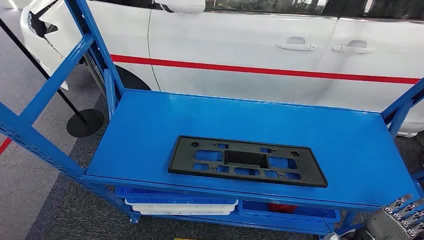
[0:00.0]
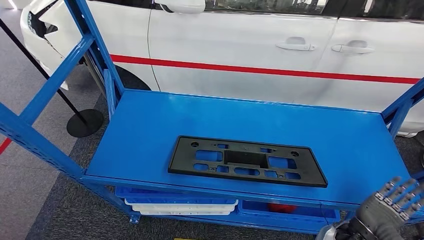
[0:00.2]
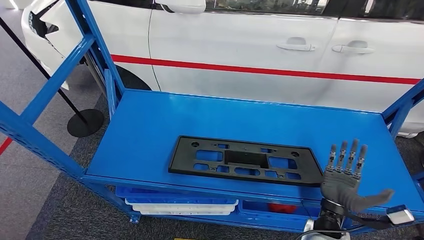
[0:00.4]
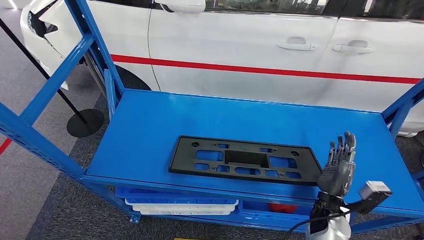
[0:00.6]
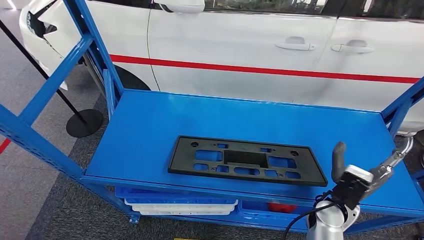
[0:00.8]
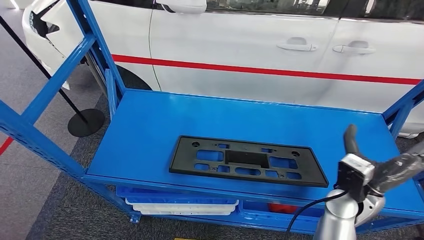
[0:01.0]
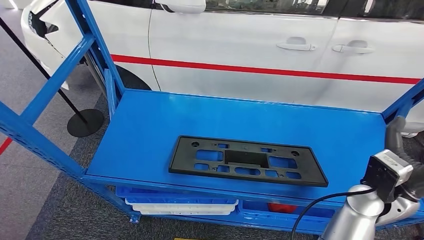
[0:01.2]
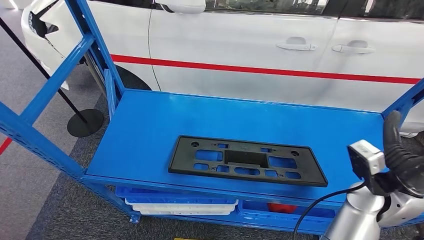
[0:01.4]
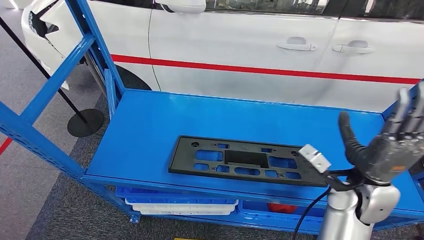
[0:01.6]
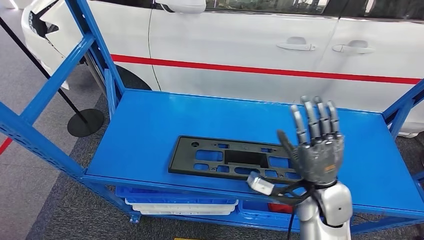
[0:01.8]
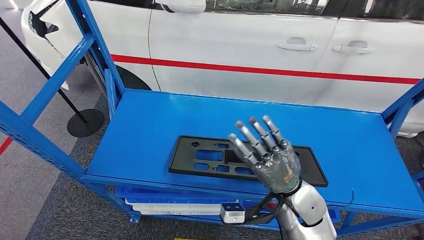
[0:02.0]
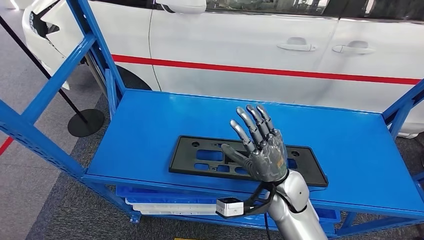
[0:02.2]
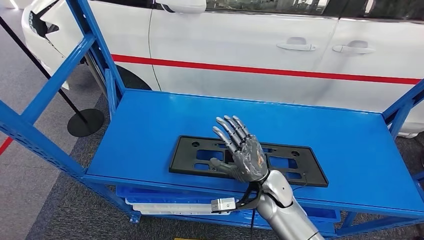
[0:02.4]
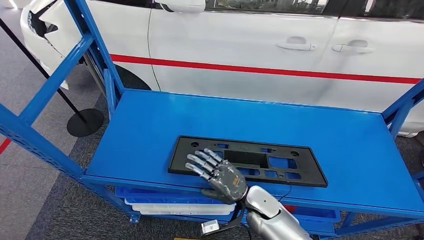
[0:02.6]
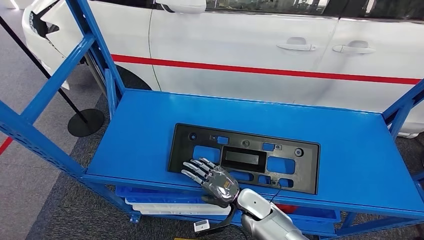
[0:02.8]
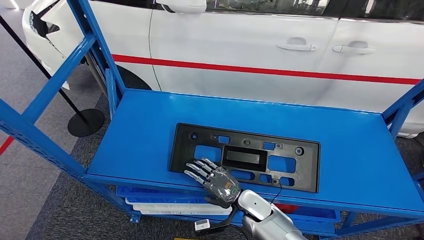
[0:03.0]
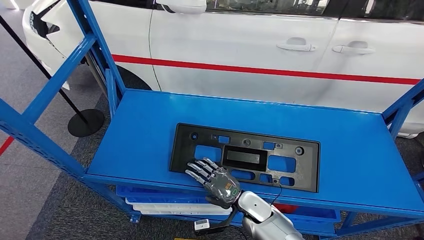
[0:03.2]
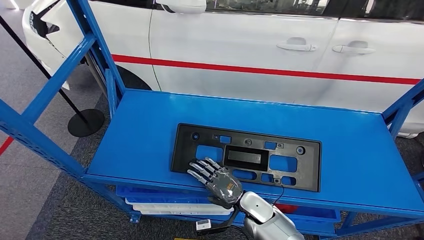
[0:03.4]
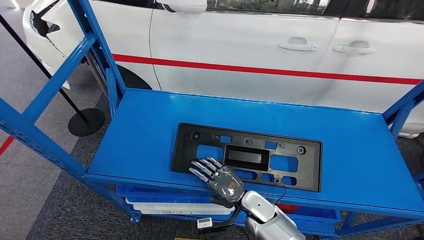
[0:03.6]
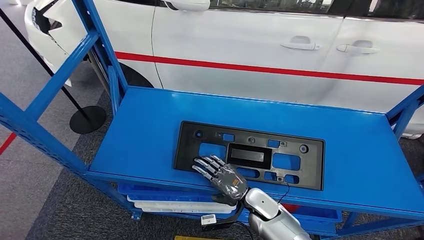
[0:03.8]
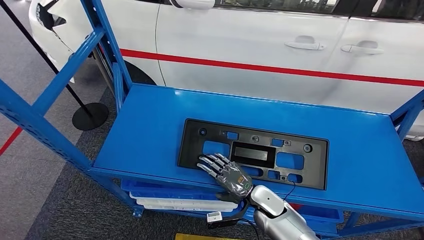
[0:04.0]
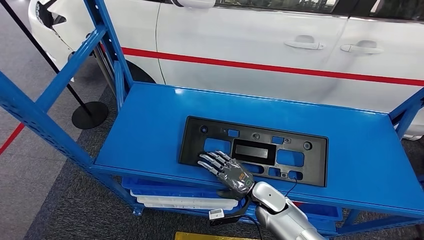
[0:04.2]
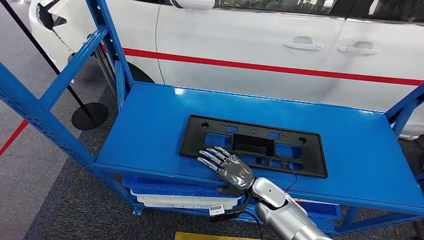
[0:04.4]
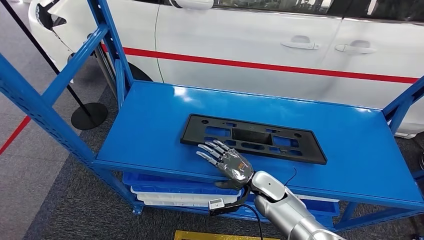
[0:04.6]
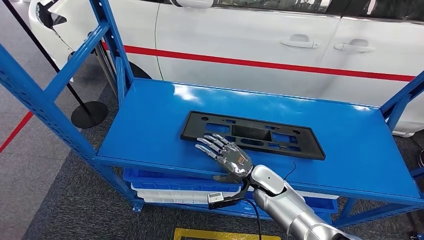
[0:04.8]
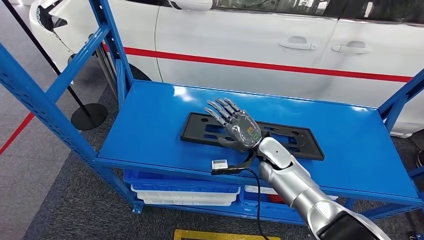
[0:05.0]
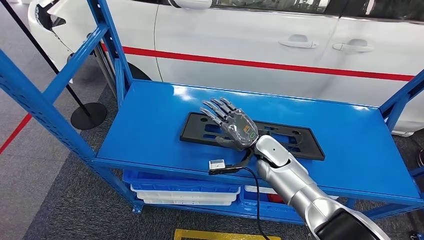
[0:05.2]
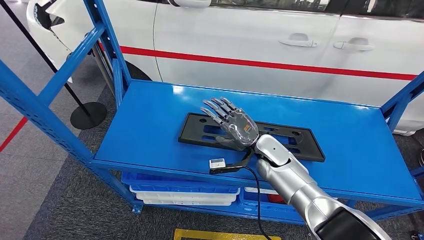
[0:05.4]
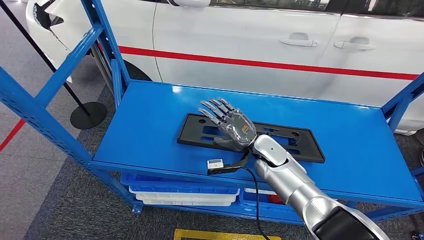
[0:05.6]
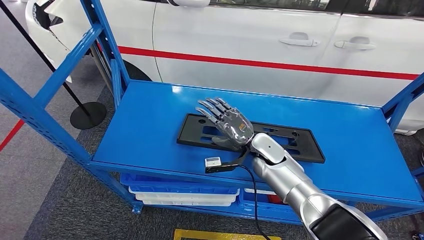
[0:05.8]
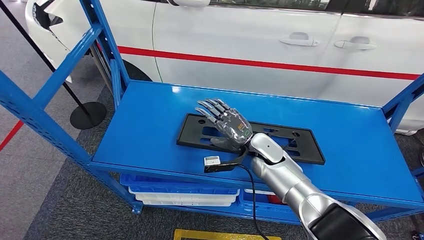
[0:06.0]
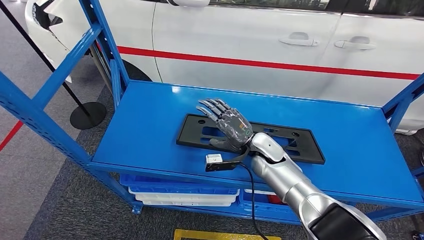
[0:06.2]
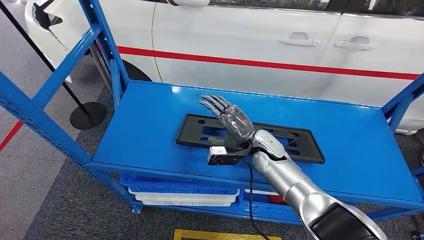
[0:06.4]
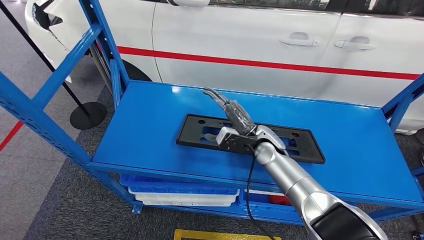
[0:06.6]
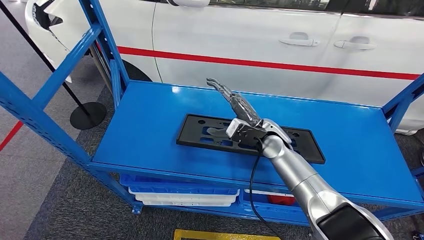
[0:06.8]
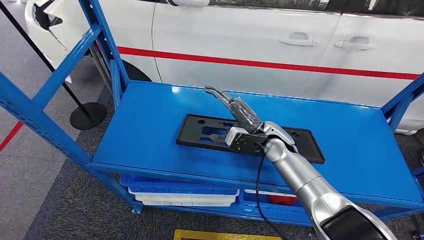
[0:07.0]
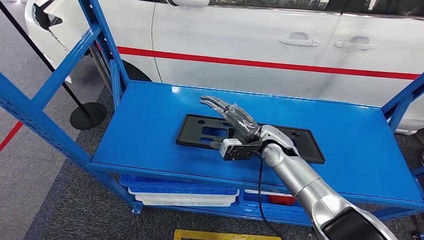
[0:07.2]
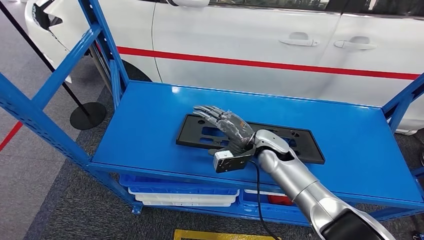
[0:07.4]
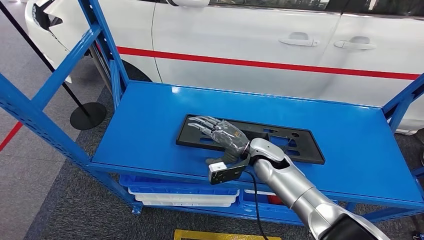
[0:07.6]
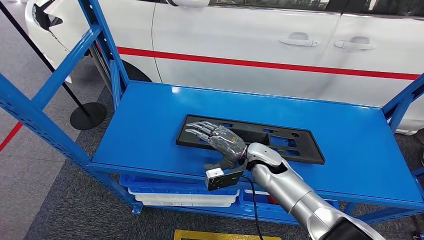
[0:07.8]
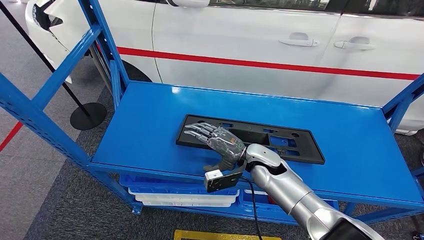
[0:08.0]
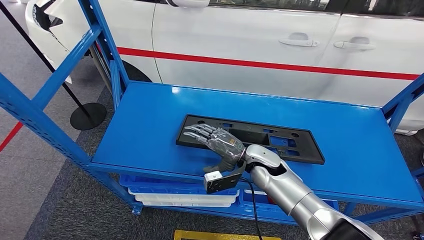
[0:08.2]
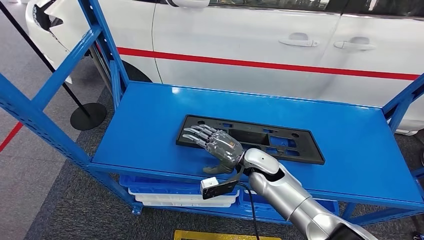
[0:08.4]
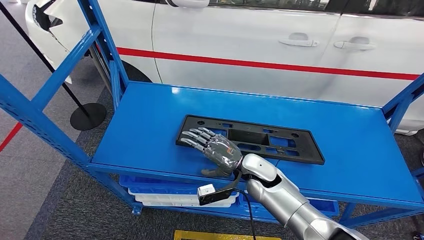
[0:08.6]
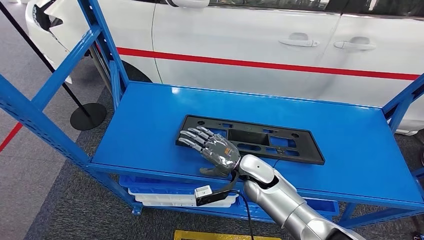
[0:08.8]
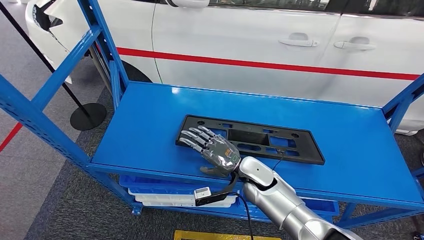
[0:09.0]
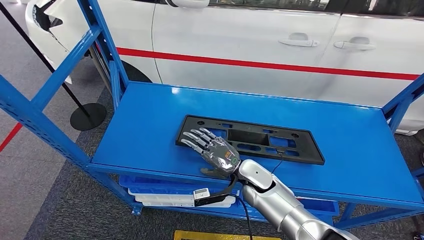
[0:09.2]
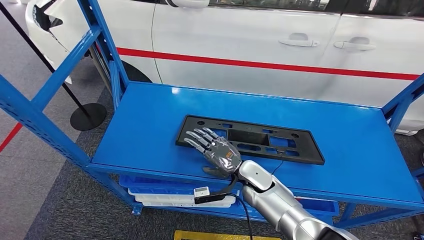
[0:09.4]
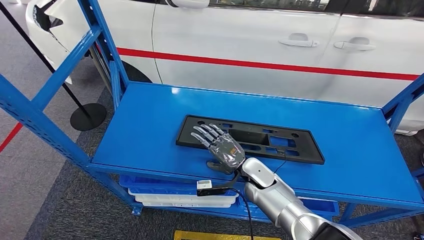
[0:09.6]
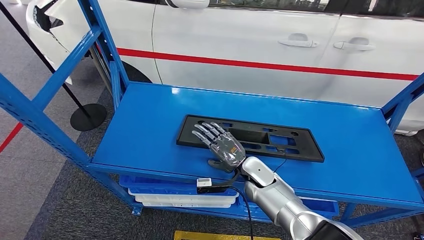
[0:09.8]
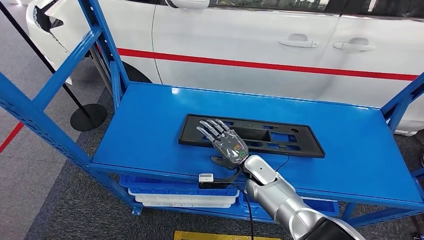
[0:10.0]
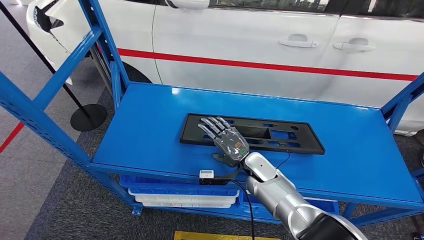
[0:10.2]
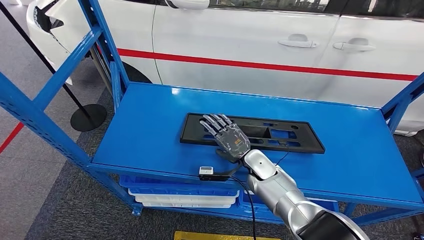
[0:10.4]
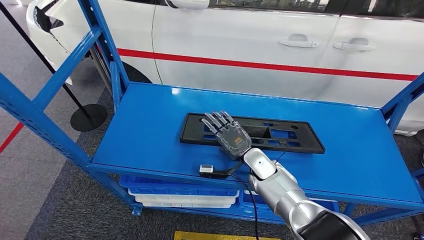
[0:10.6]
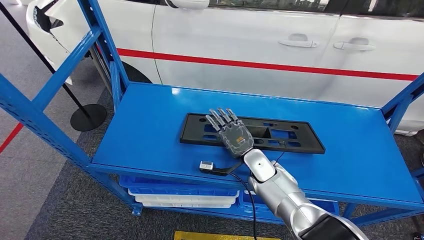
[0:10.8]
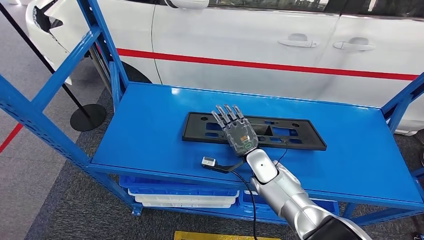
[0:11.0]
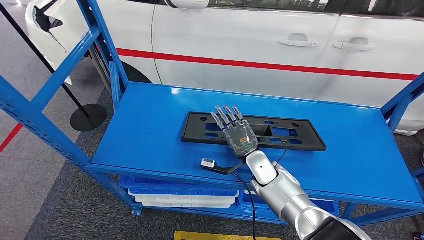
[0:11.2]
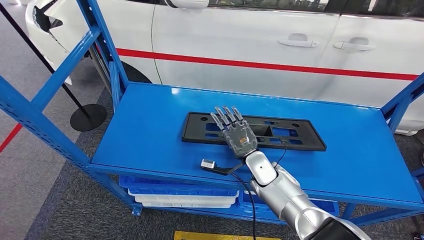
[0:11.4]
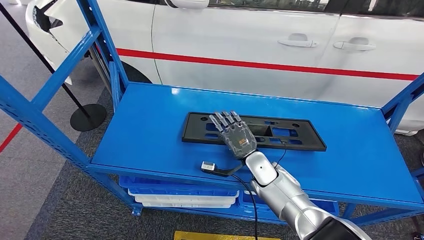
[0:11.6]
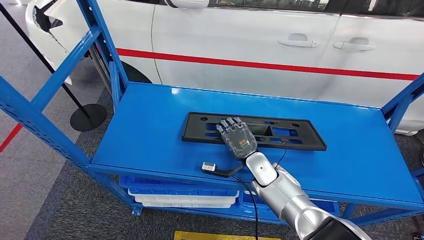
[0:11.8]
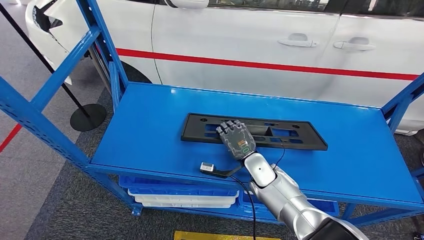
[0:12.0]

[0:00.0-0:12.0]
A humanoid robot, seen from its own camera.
0:01.6 to 0:03.0: The right hand is displaced downward and to the left by roughly 30 cm.
0:07.6 to 0:09.0: The right hand moves some 5 cm.
0:10.4 to 0:12.0: There are only small adjustments of the hands.

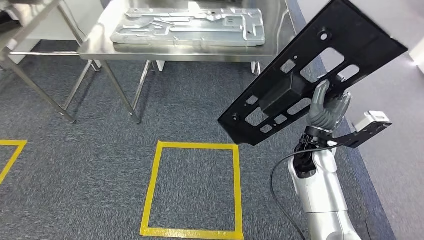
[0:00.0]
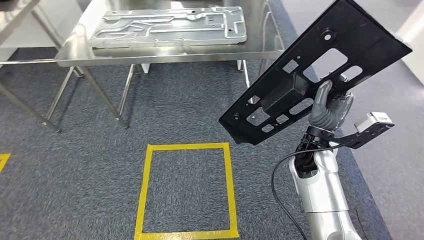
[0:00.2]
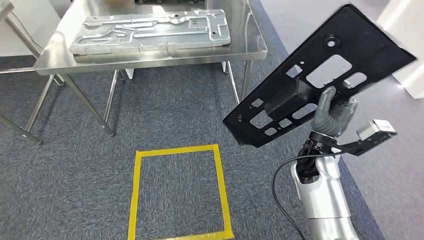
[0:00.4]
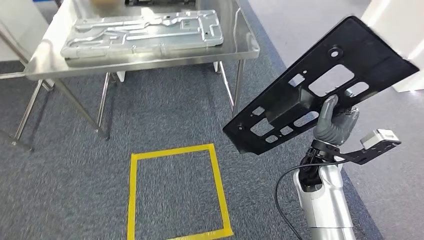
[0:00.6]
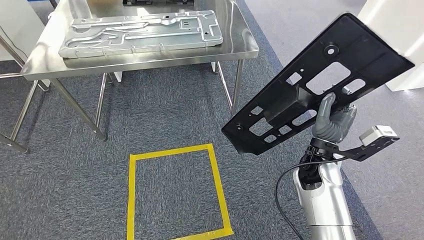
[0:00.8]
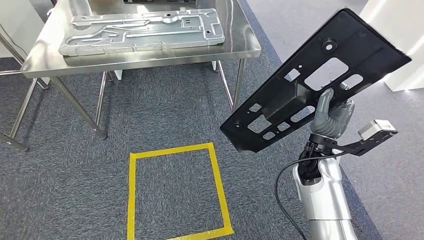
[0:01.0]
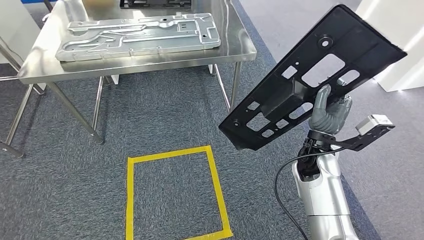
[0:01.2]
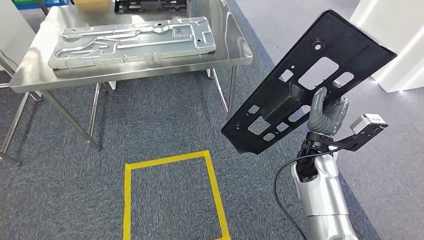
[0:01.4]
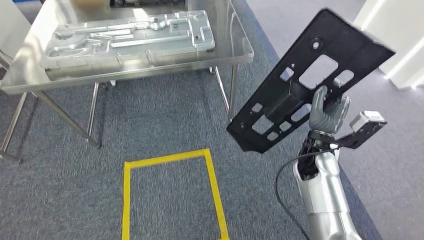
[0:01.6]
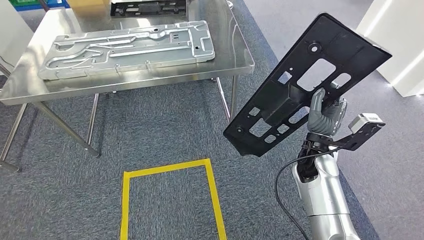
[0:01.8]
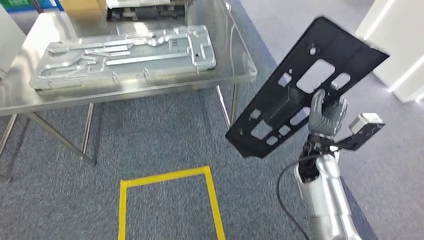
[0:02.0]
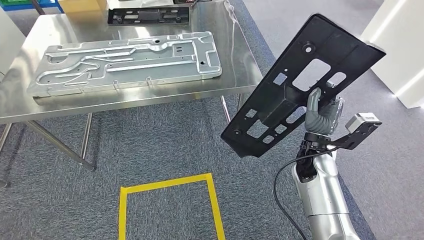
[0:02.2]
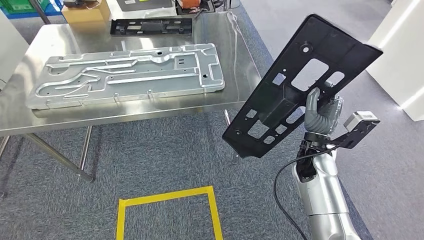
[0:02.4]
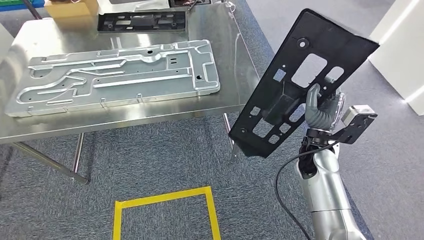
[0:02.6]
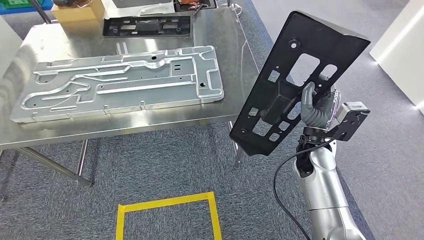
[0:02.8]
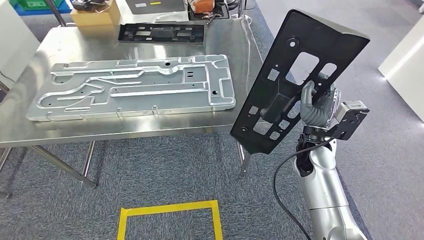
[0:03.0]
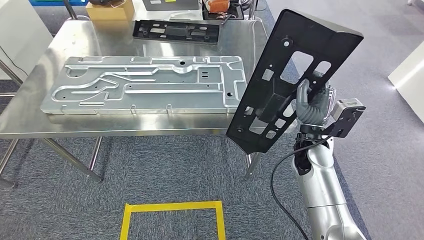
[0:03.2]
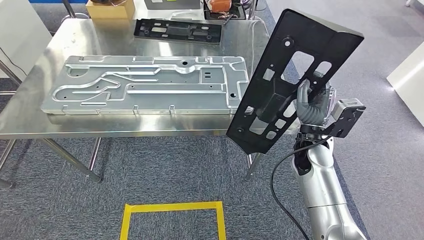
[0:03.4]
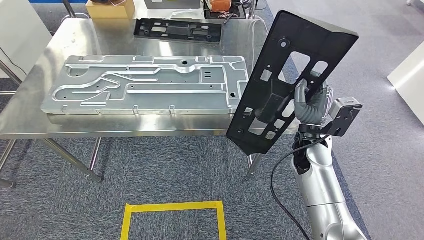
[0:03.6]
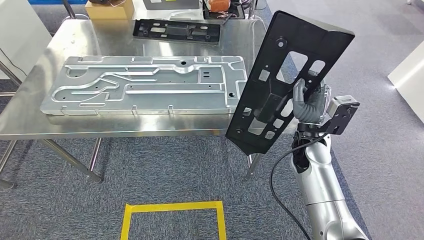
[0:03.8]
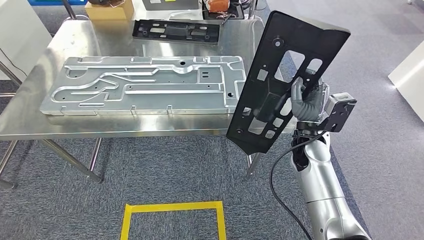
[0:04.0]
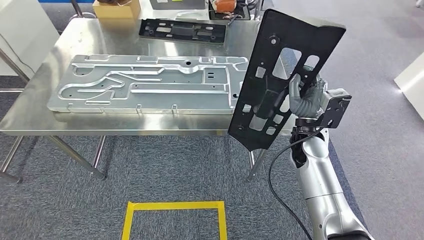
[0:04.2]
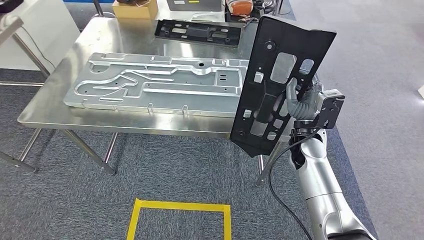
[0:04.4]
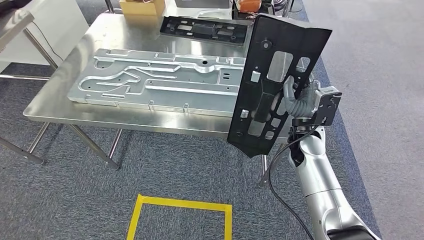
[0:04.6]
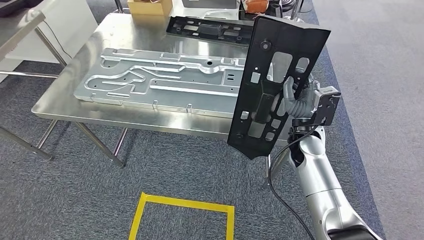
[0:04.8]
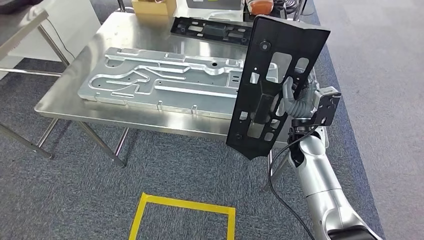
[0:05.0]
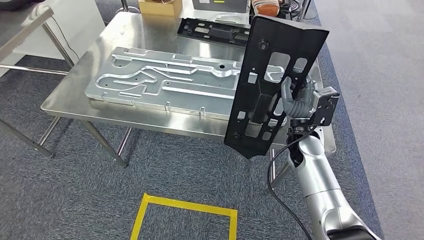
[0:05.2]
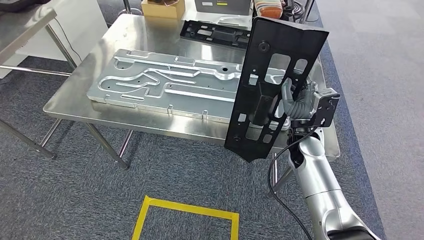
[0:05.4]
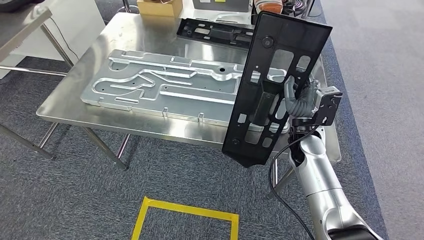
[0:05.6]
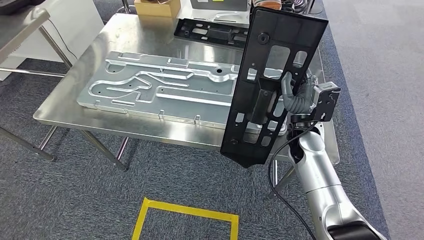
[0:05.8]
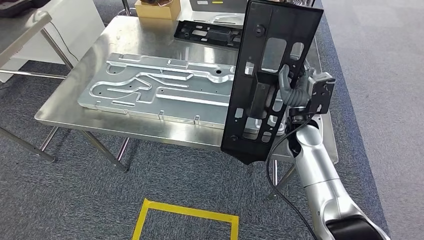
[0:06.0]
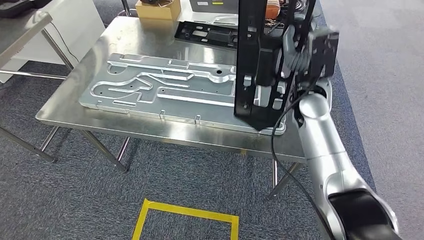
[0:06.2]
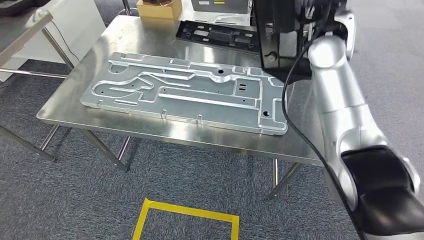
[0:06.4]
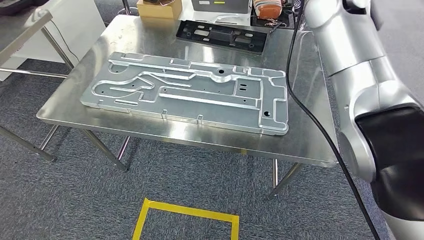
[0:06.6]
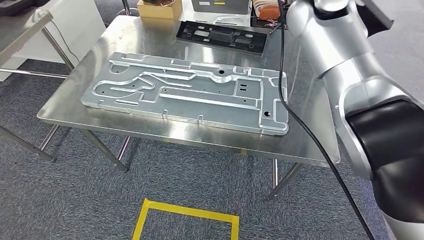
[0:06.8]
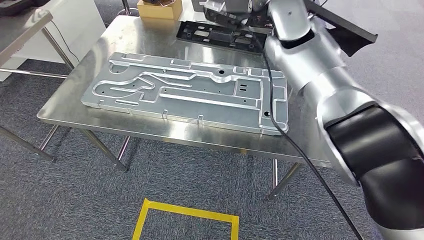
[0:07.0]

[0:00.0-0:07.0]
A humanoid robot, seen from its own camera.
Step, 0:00.0 to 0:03.8: Move the large material to the workbench.
